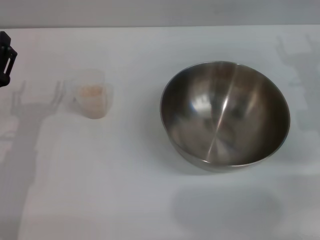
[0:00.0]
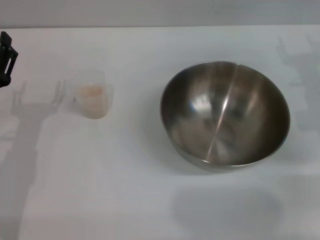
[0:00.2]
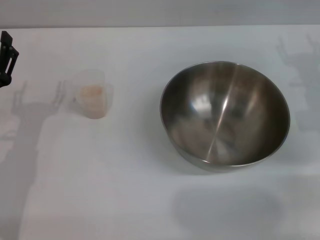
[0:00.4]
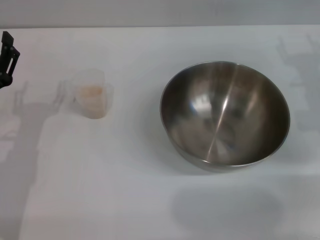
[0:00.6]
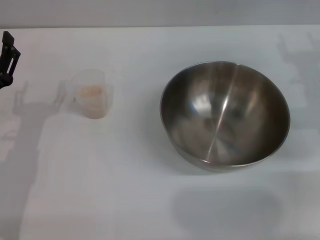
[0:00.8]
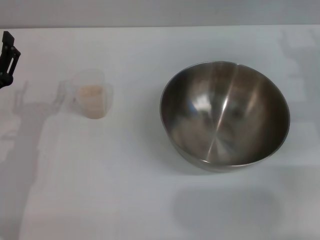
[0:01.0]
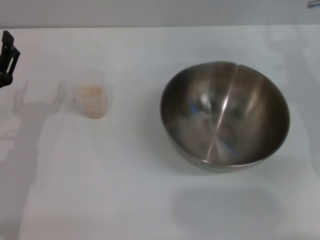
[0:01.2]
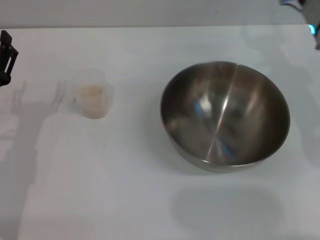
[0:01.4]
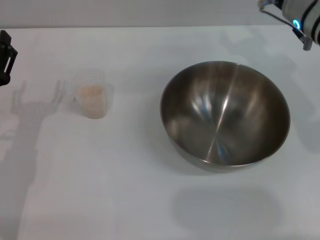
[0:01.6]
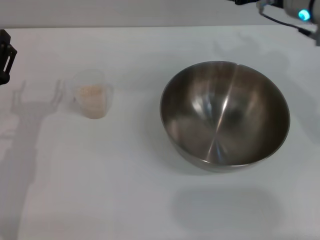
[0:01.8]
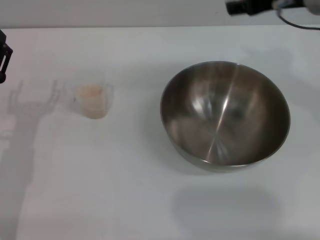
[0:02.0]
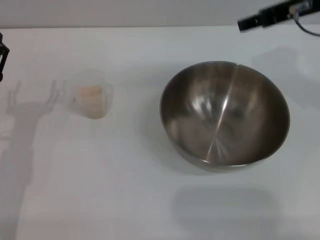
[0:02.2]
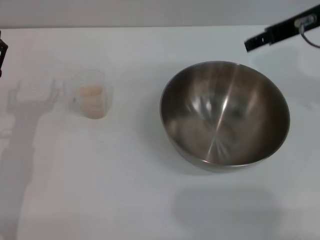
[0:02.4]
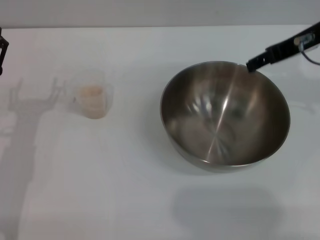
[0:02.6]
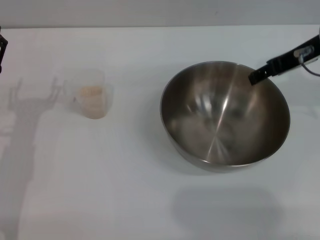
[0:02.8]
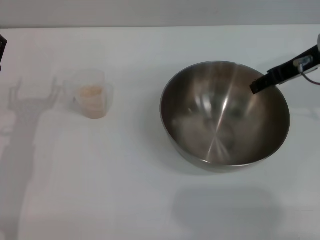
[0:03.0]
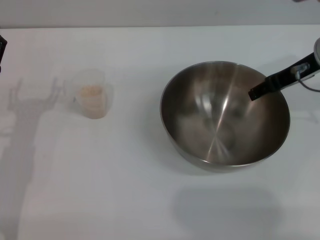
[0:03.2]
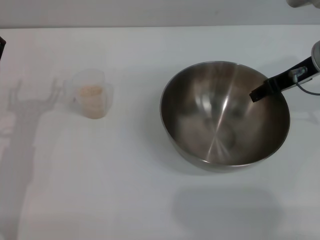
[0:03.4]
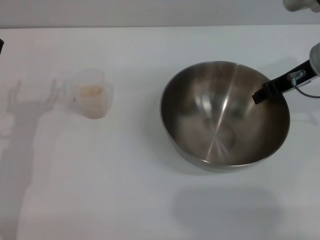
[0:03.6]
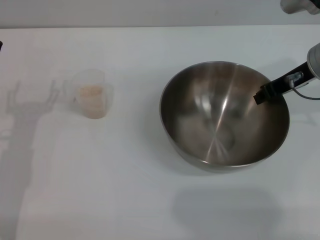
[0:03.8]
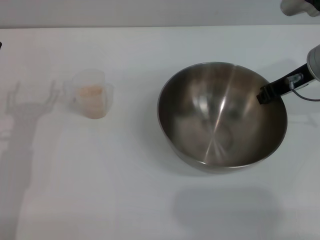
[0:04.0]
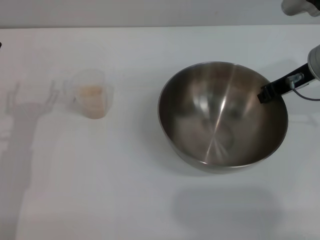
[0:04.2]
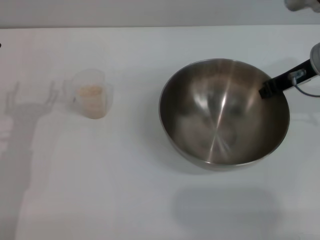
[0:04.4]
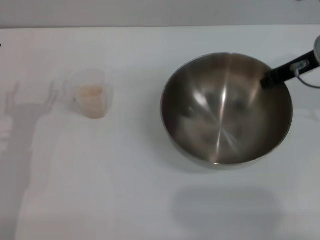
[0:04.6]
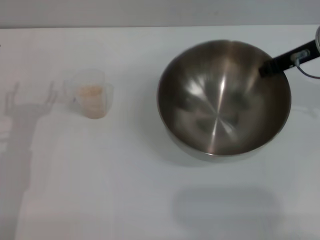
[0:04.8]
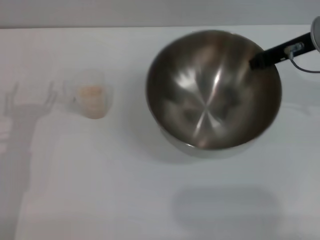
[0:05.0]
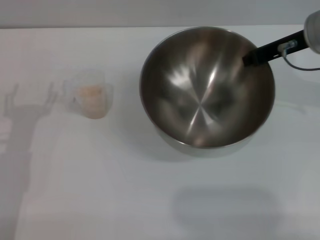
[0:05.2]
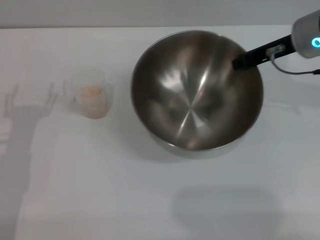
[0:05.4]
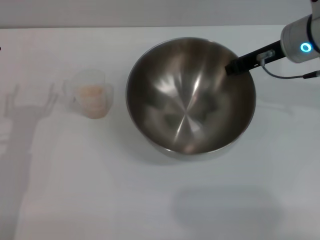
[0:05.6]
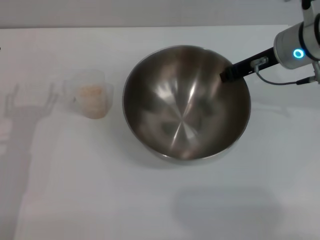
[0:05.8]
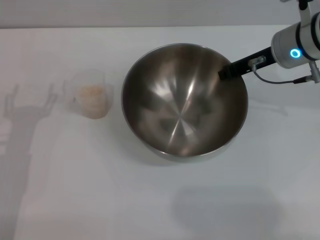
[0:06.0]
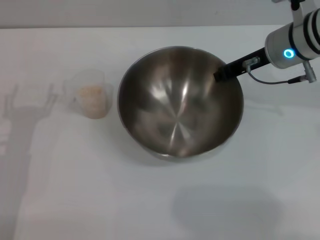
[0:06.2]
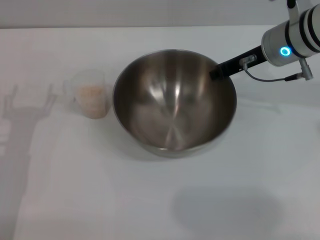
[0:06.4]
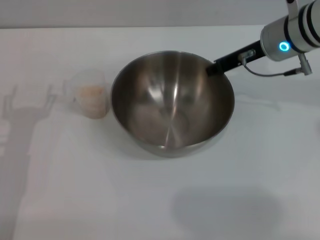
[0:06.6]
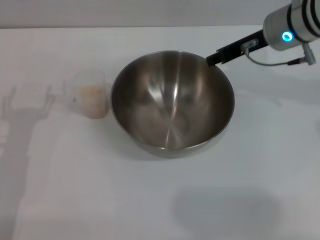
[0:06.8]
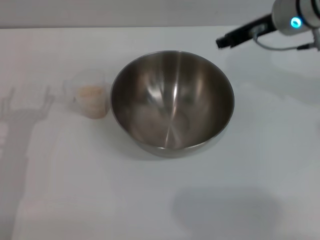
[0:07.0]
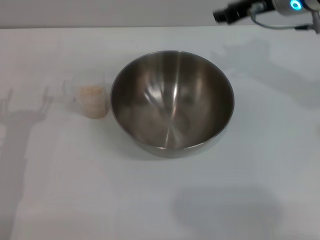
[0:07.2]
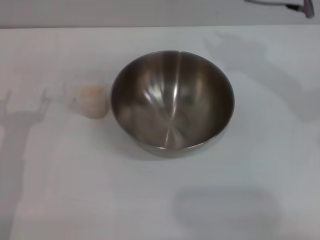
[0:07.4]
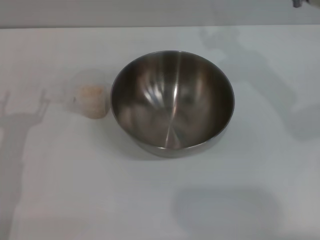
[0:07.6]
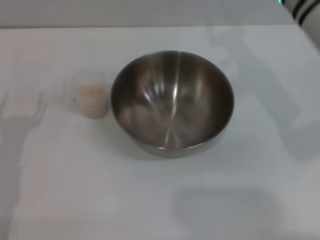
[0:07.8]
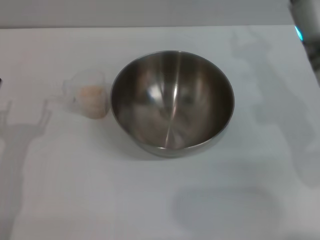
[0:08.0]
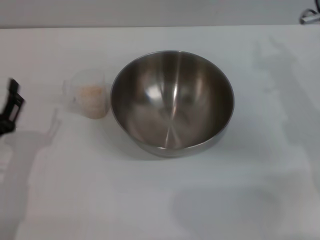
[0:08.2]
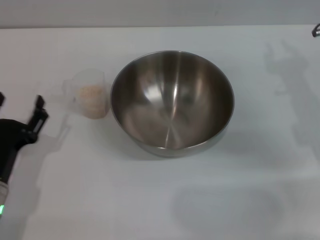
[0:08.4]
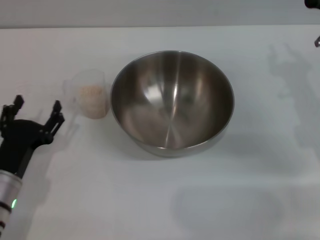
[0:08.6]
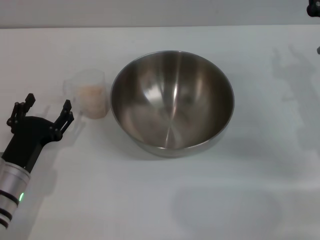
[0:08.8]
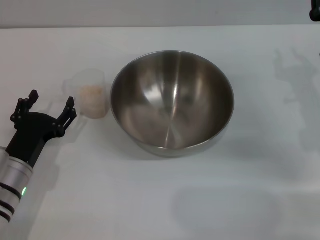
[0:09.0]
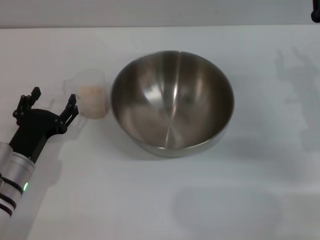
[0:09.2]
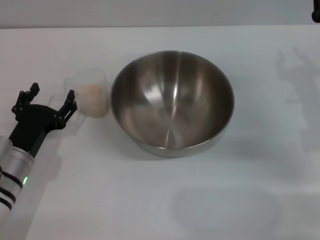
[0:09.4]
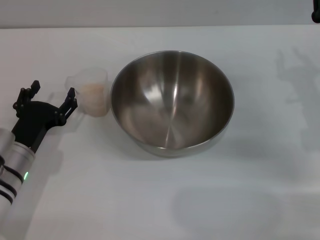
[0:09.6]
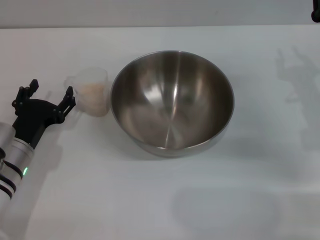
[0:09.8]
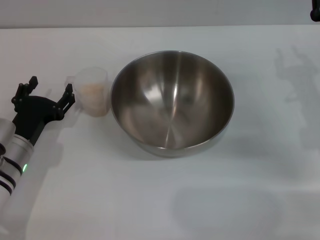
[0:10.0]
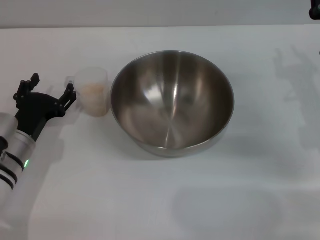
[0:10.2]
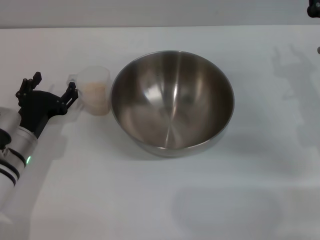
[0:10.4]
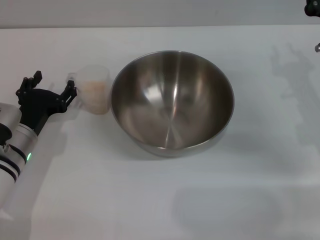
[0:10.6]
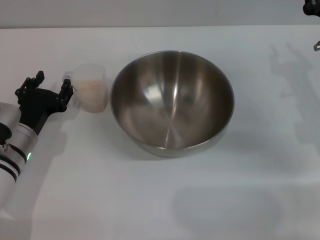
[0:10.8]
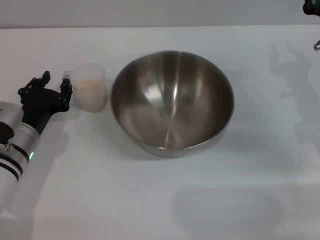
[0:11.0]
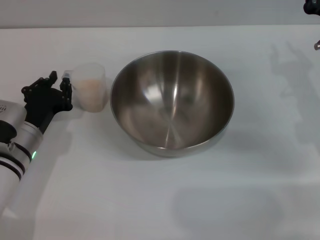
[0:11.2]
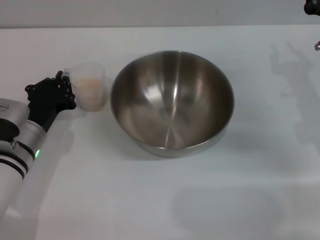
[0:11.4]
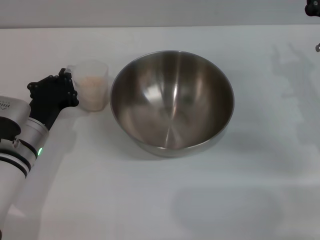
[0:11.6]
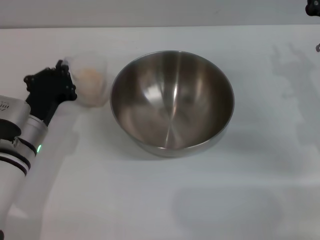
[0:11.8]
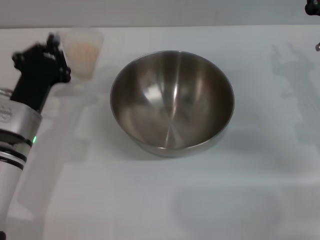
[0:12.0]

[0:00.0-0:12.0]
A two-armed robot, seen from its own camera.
Task of the whole recording: Place the bowl in the middle of the table with one hand and pour the rice from the grain cup into it with the other hand.
Step, 0:00.0 to 0:05.2: Pick up the bowl with the right gripper.
Step, 0:05.4 to 0:07.0: Place the bowl in the center of view with the right gripper.
0:00.0 to 0:01.6: The right gripper travels to the left, upward and forward by roughly 10 cm.
0:01.6 to 0:03.0: The right gripper reaches some 10 cm upward, then returns.
0:03.0 to 0:04.4: The right gripper closes up.
0:06.0 to 0:07.6: The right gripper shifts approximately 5 cm upward, and opens.
0:07.6 to 0:09.0: The left gripper is displaced downward by approximately 5 cm. The right gripper goes about 20 cm downward, to the right and backward.
0:09.0 to 0:10.4: The left gripper is displaced forward by approximately 5 cm.
0:10.4 to 0:12.0: The left gripper closes its fingers.

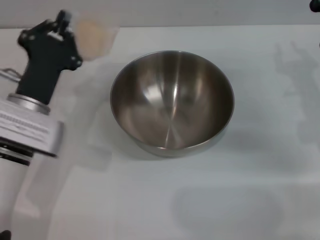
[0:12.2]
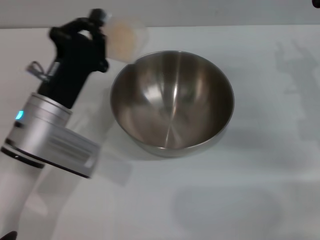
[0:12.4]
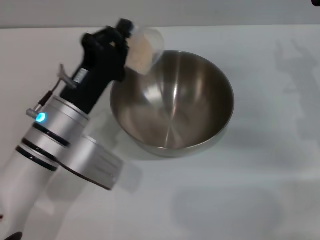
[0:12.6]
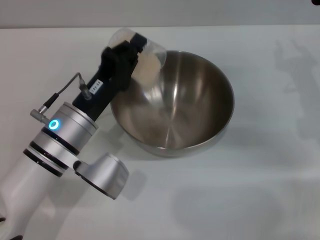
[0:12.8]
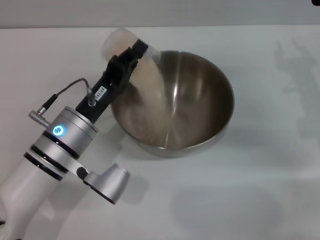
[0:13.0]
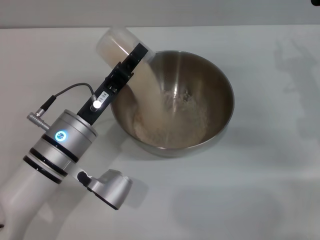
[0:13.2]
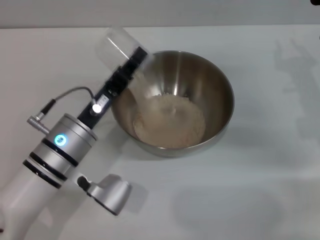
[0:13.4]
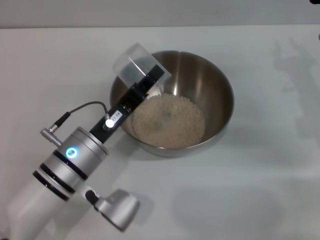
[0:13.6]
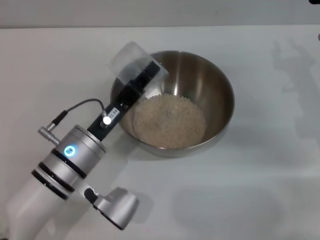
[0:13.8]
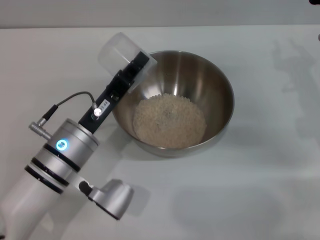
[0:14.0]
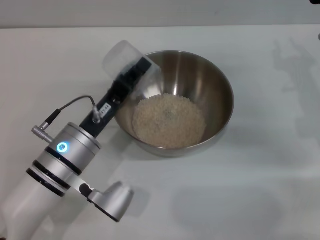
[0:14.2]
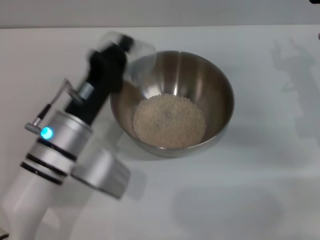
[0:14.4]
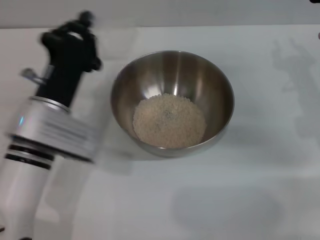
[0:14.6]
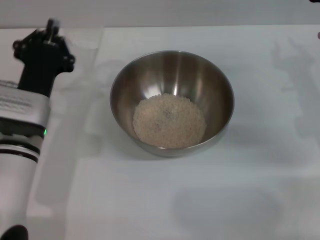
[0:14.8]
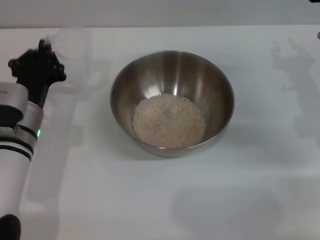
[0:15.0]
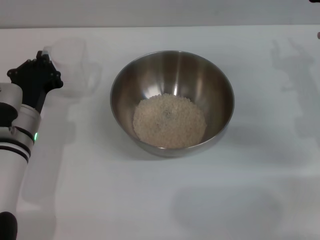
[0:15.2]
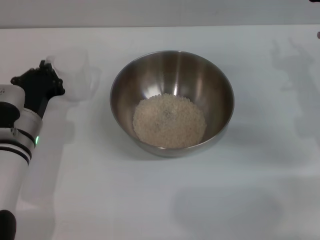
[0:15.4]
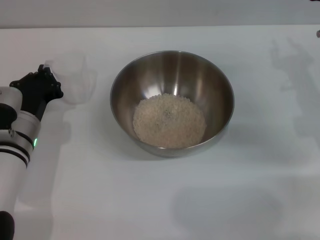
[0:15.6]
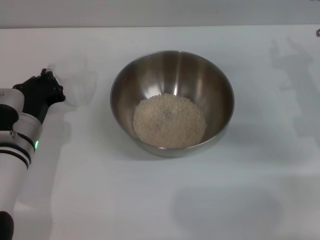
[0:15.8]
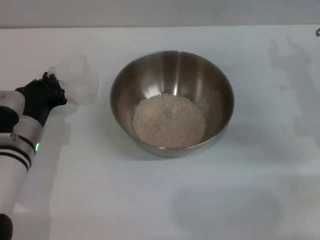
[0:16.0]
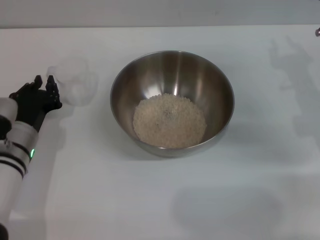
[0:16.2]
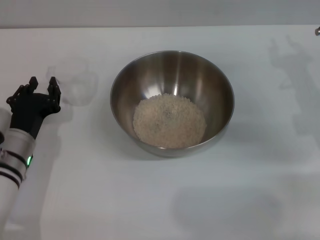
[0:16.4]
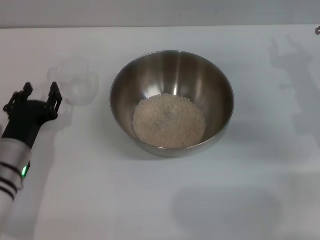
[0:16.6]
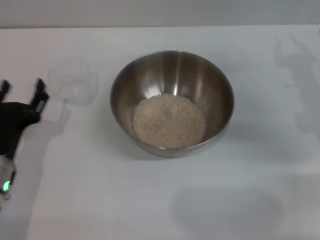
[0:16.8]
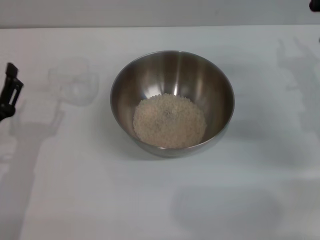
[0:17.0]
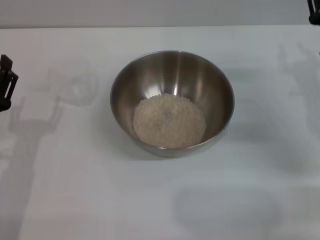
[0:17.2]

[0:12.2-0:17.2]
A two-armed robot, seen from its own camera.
Task of the whole recording: Place the bowl in the middle of the table with one hand and pour the rice from the grain cup into it with the other hand.
Step, 0:12.4 to 0:13.4: Pour the rice from the cup into the bowl with the left gripper.
Step, 0:13.6 to 0:16.4: Place the cup on the table with the left gripper.
0:12.2 to 0:13.8: The left gripper is displaced to the right by roughly 5 cm.
0:13.8 to 0:15.6: The left gripper is displaced to the left and forward by approximately 10 cm.
0:15.6 to 0:17.2: The left gripper is displaced backward by about 10 cm, and opens its fingers.

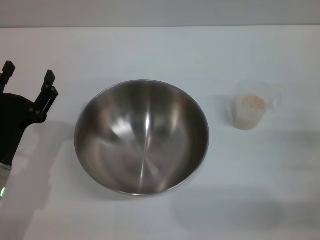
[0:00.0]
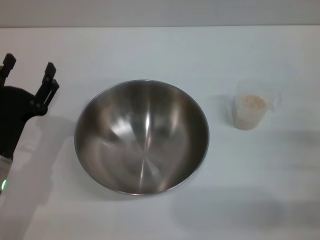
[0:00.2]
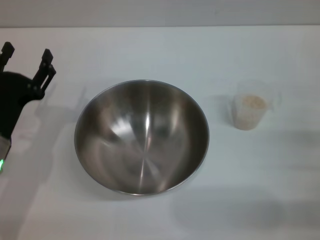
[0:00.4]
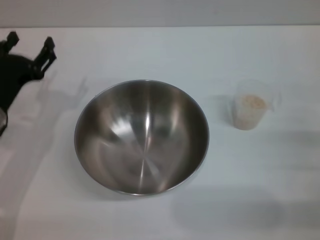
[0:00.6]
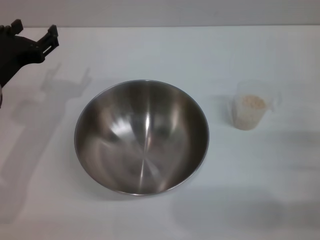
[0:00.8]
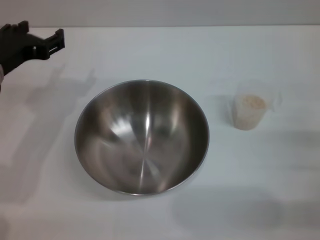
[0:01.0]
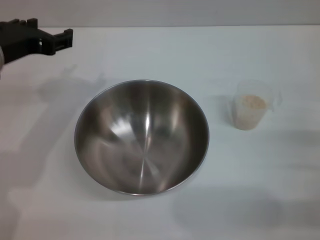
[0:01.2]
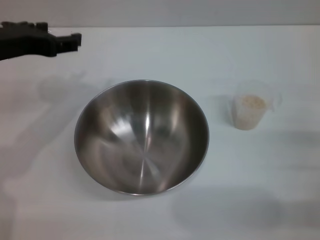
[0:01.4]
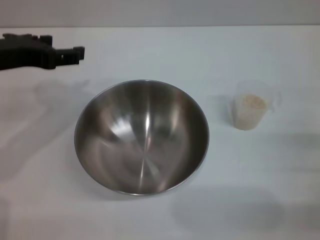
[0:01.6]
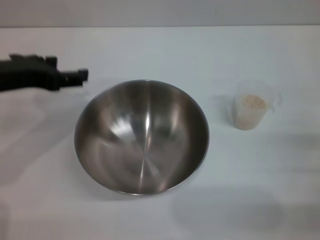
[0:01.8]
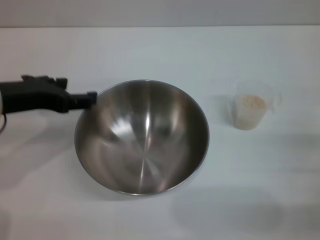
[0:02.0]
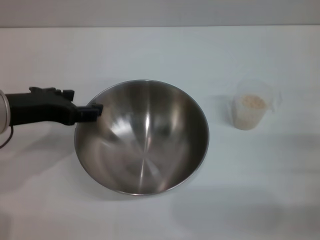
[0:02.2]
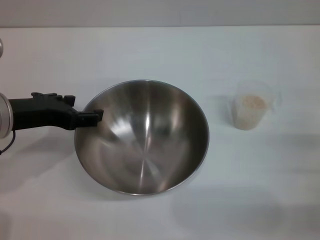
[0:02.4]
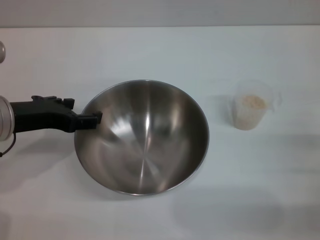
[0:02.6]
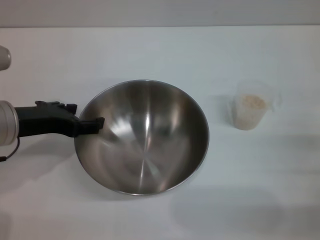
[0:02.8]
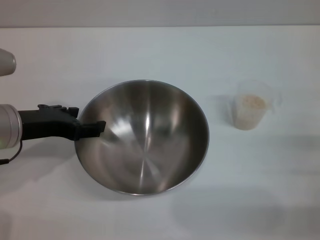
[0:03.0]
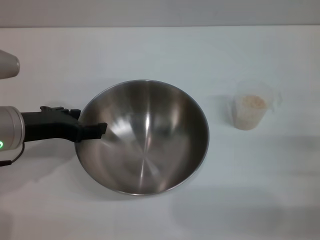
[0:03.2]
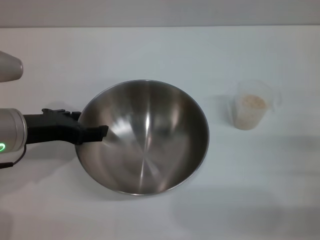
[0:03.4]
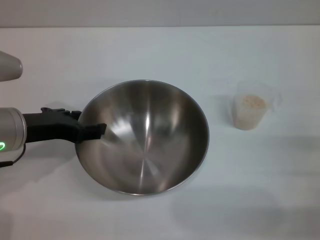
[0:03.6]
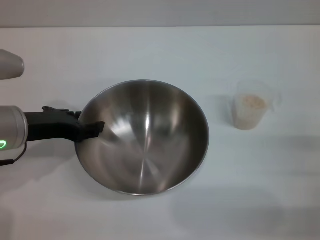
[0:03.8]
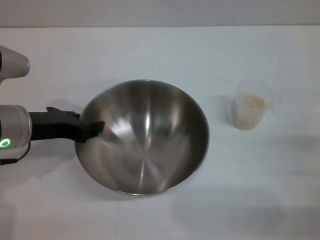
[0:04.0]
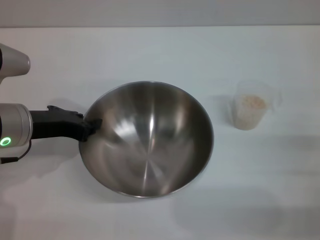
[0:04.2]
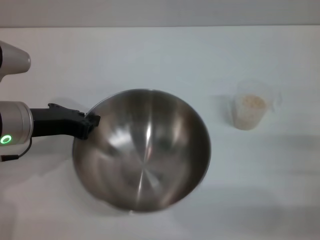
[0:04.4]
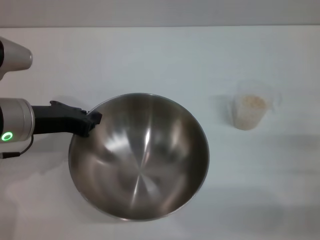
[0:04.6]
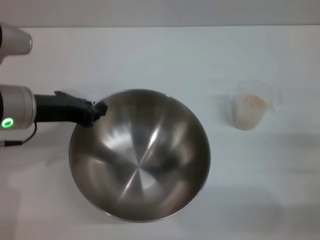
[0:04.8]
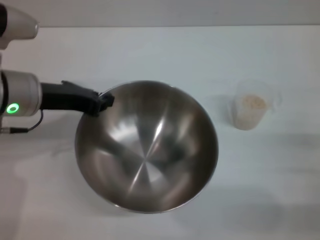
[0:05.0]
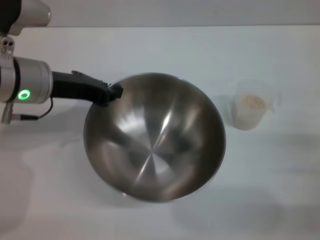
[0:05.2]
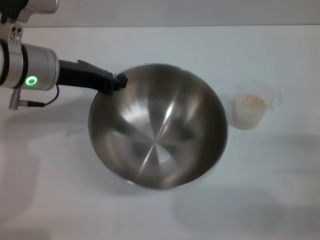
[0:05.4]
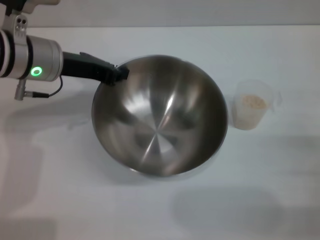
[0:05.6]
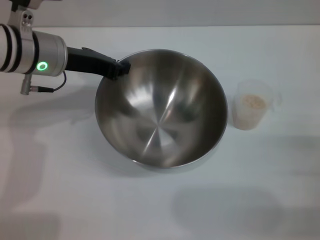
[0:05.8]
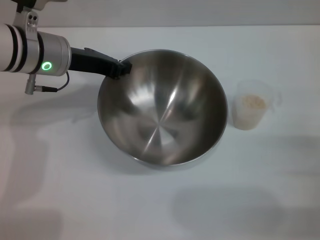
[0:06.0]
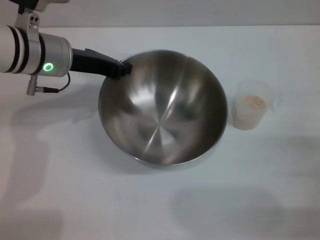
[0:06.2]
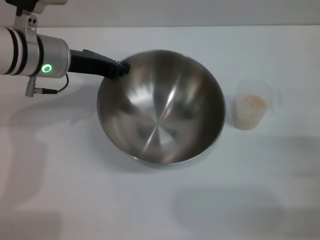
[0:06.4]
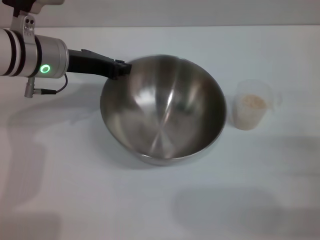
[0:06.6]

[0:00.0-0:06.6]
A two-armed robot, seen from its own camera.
Task of the whole recording: Place the bowl in the middle of the table with one hand and pour the rice from the grain cup into it with the other hand.
Step, 0:00.0 to 0:05.4: Pick up the bowl with the left gripper.
0:00.0 to 0:01.6: The left gripper is displaced upward and forward by some 20 cm.
0:01.6 to 0:03.2: The left gripper moves downward, some 10 cm.
0:03.2 to 0:05.0: The left gripper changes place by about 5 cm, and closes up.
0:05.0 to 0:06.6: The left gripper travels forward by roughly 5 cm.
